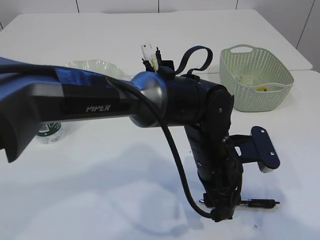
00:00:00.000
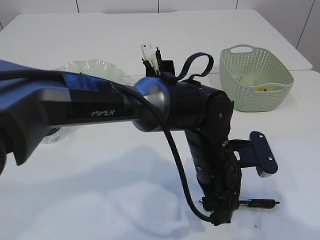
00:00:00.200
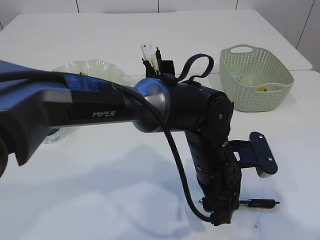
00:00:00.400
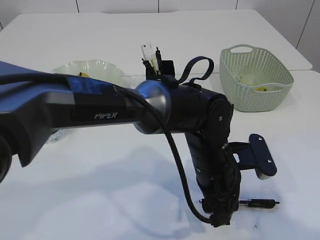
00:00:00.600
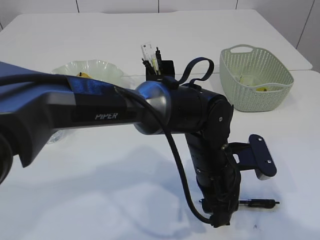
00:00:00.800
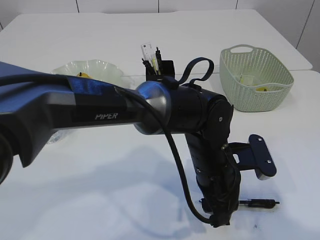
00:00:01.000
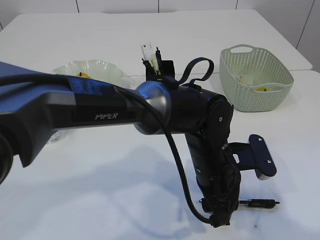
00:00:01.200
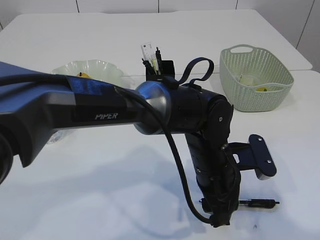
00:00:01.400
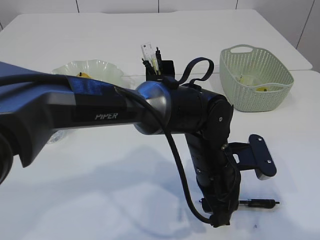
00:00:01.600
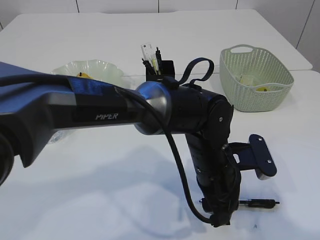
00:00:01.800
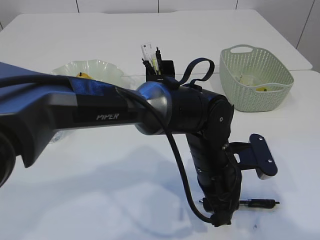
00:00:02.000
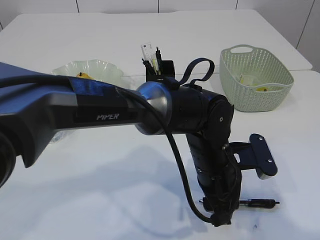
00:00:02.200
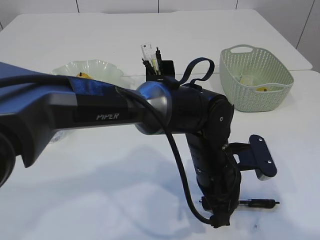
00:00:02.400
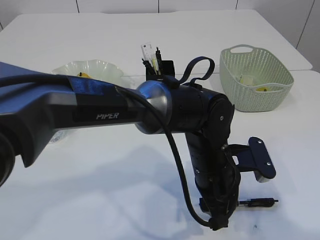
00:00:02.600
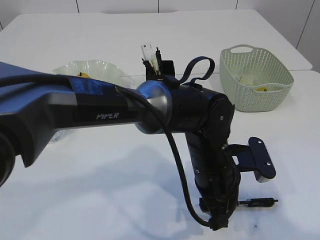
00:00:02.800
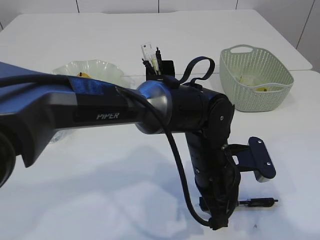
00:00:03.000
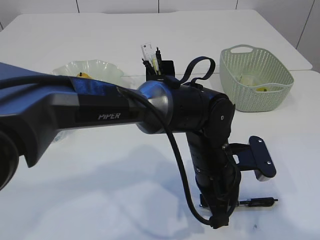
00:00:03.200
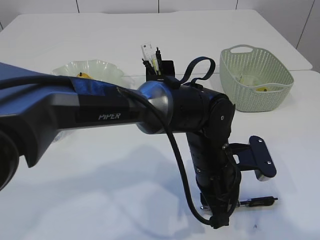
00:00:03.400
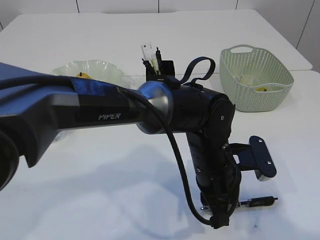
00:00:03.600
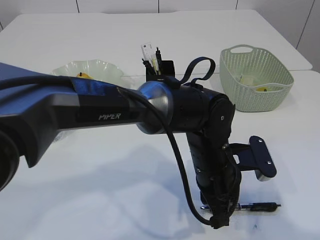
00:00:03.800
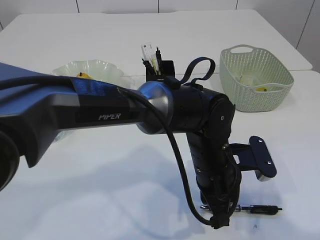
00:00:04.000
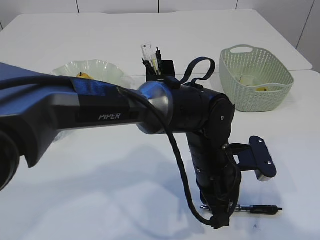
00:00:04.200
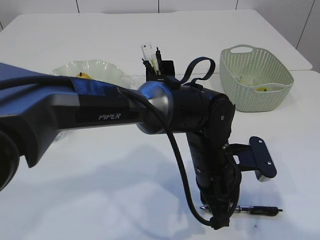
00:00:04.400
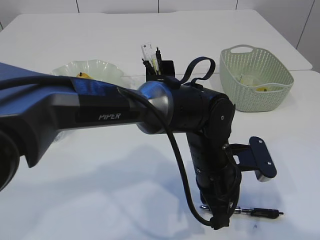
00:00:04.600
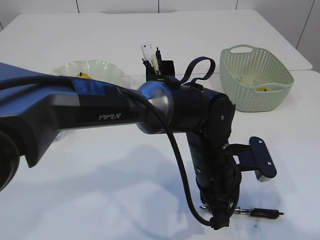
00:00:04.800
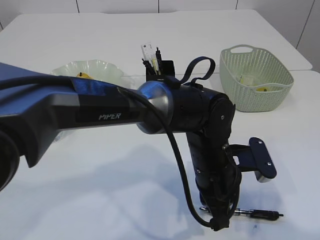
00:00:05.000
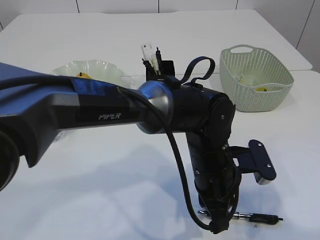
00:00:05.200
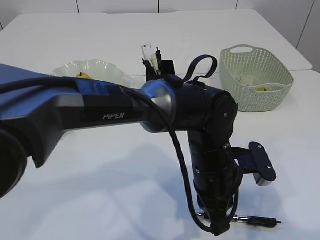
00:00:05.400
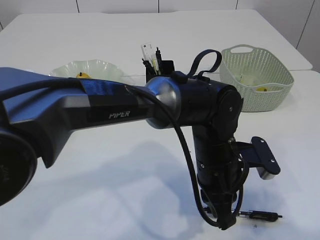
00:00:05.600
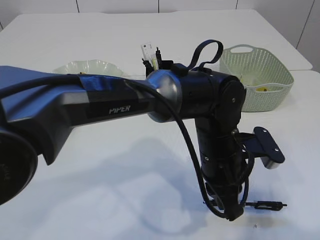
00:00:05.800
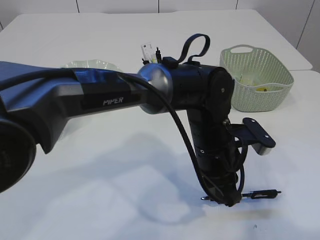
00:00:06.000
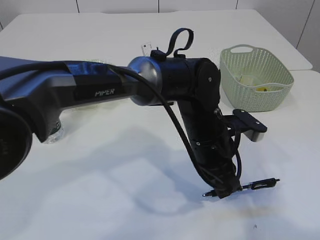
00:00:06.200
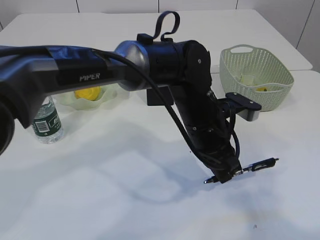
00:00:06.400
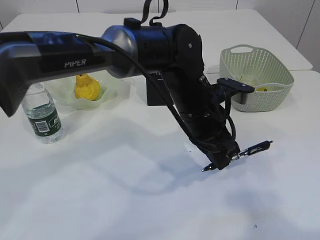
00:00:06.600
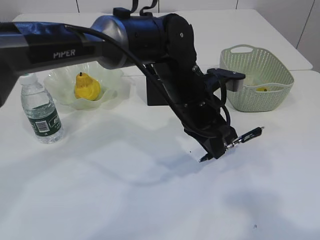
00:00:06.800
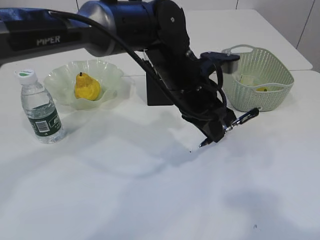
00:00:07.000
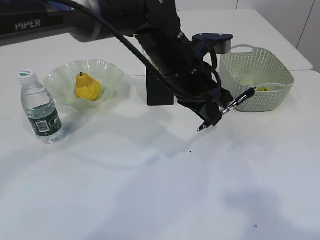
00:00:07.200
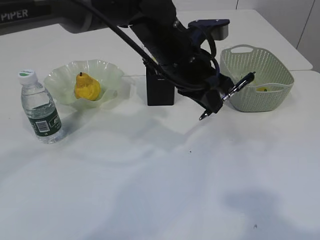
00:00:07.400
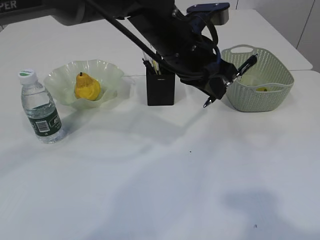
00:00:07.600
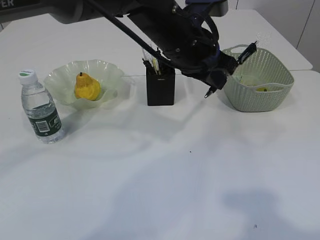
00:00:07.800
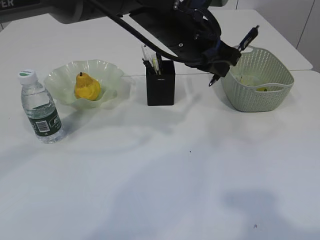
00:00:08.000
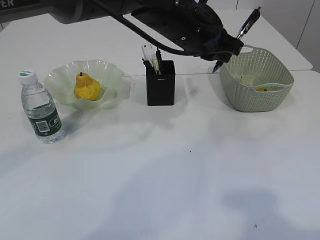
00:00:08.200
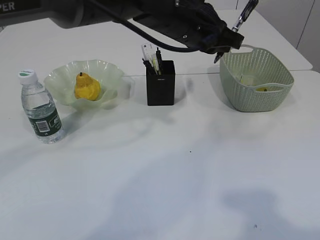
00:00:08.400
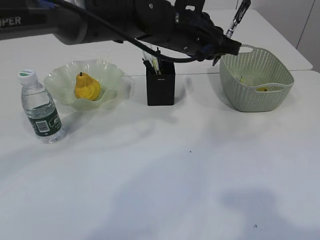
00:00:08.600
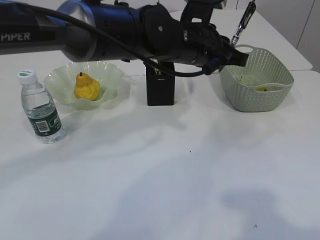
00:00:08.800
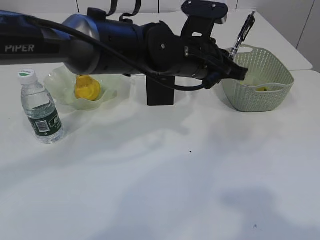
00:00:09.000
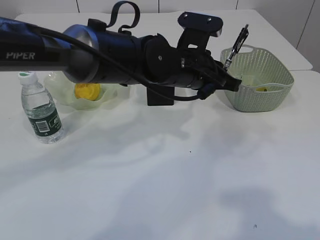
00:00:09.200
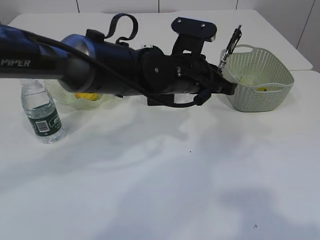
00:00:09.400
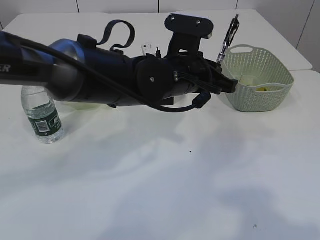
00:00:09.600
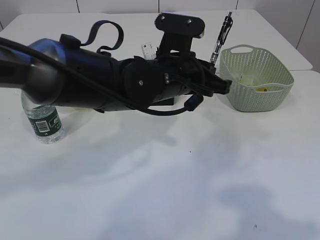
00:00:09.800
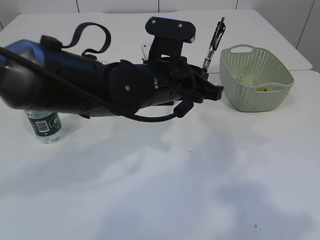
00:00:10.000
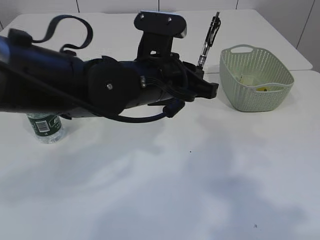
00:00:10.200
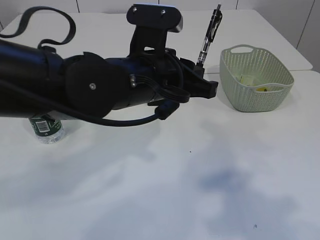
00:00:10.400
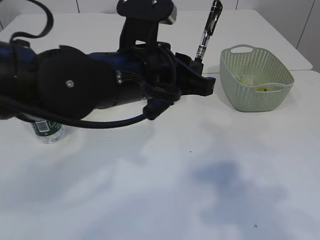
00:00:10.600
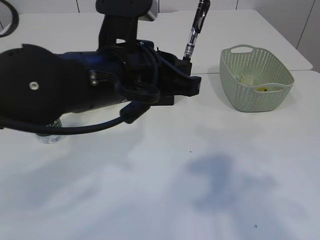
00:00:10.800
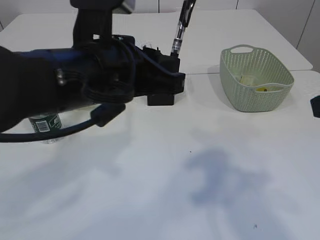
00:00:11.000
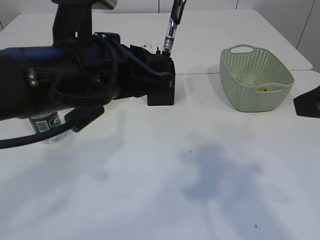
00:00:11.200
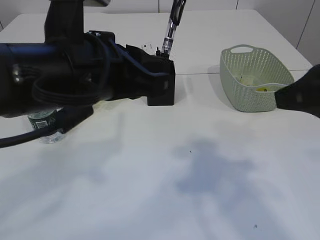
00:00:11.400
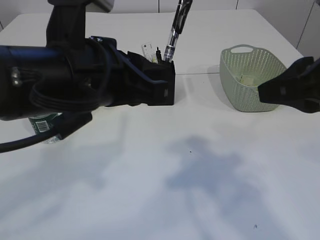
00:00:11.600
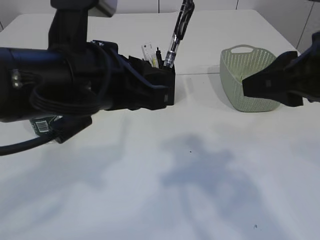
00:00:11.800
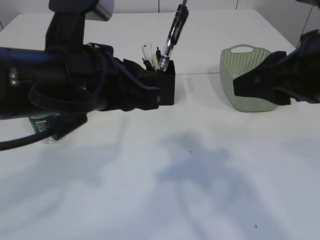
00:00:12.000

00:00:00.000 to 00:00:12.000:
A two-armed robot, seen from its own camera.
Step, 00:00:00.000 to 00:00:06.400: Pick up the pen with left arm.
00:00:00.000 to 00:00:01.600: The grippers move only a little.
00:00:01.600 to 00:00:03.000: Both grippers stay put.
00:00:03.000 to 00:00:04.400: The left gripper closes.
00:00:06.000 to 00:00:07.600: The left gripper is displaced upward, forward and to the left by some 15 cm.
00:00:09.000 to 00:00:10.400: The left gripper shifts approximately 10 cm backward and to the left.
00:00:10.400 to 00:00:12.000: The left gripper moves to the left and backward, approximately 10 cm. The right gripper moves forward and to the left, roughly 15 cm.

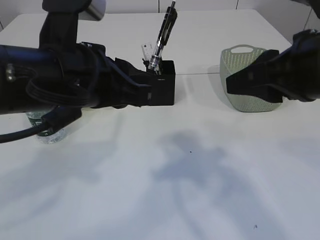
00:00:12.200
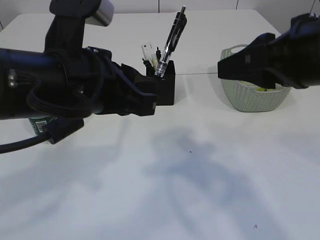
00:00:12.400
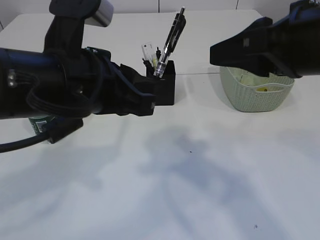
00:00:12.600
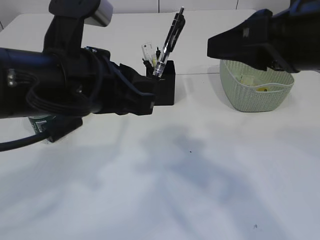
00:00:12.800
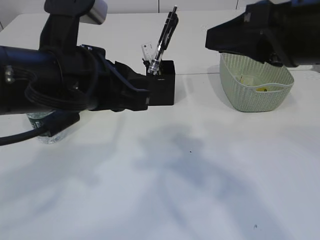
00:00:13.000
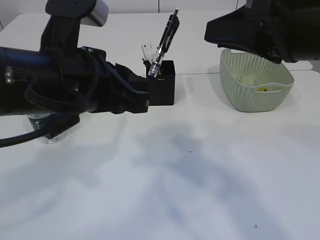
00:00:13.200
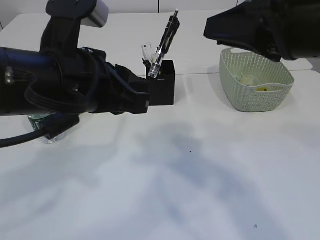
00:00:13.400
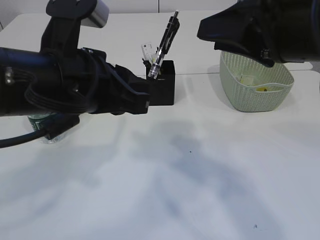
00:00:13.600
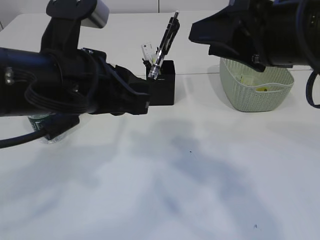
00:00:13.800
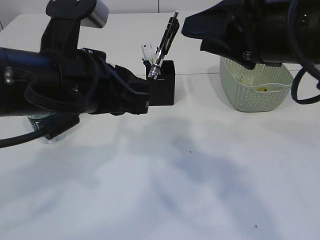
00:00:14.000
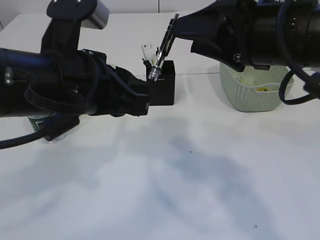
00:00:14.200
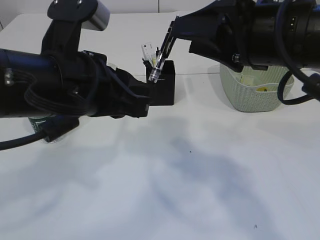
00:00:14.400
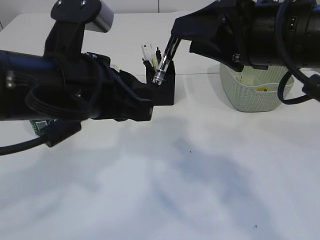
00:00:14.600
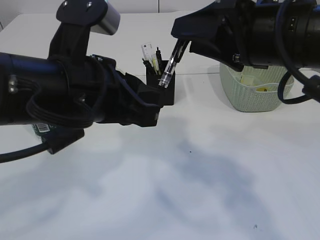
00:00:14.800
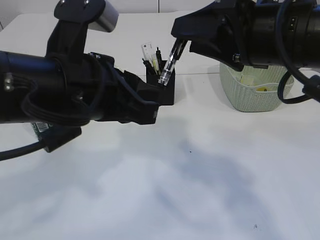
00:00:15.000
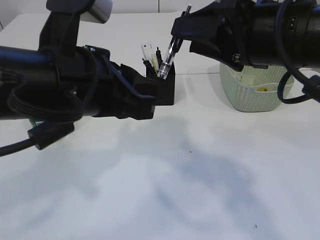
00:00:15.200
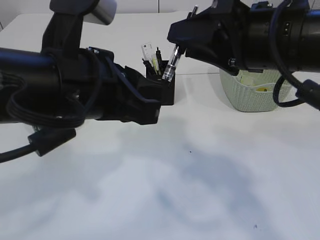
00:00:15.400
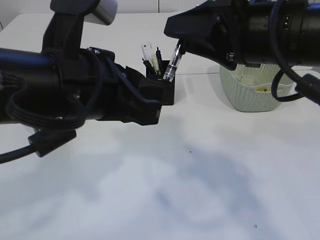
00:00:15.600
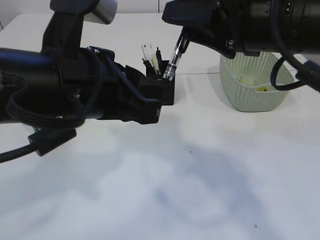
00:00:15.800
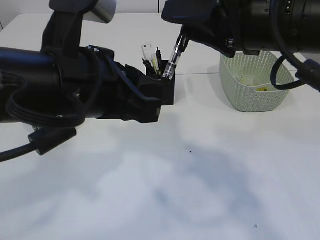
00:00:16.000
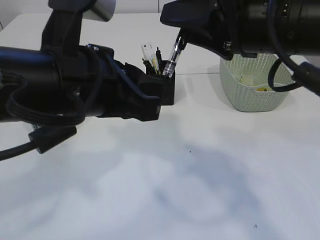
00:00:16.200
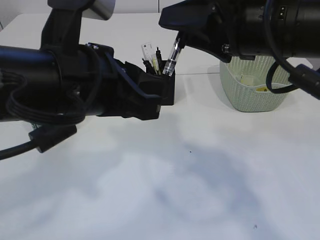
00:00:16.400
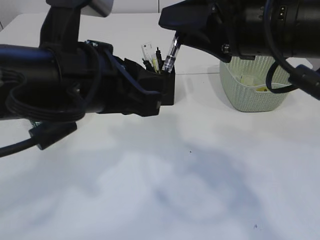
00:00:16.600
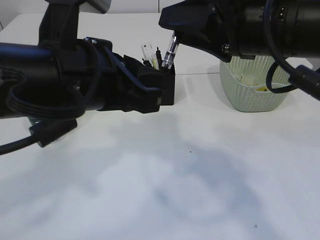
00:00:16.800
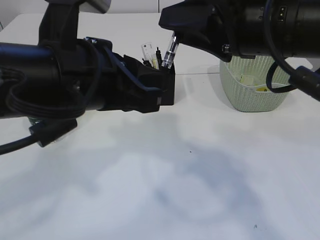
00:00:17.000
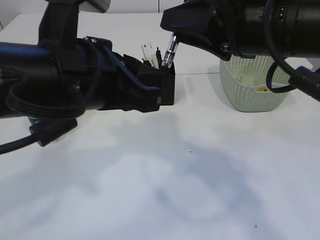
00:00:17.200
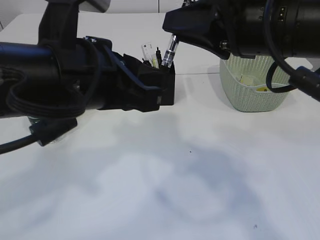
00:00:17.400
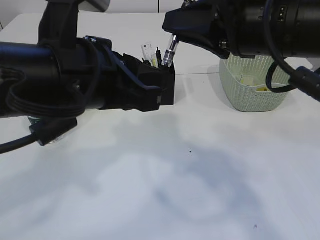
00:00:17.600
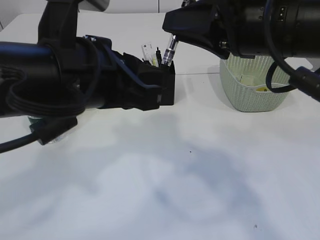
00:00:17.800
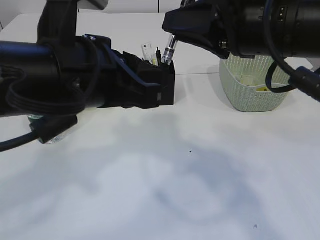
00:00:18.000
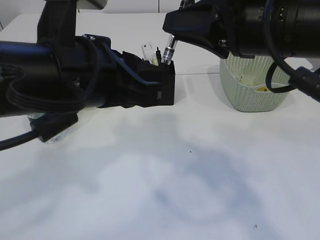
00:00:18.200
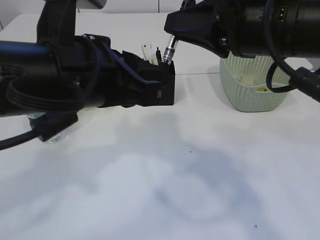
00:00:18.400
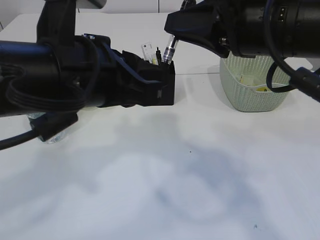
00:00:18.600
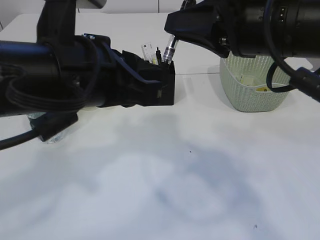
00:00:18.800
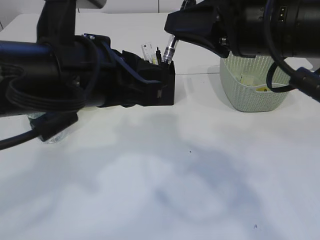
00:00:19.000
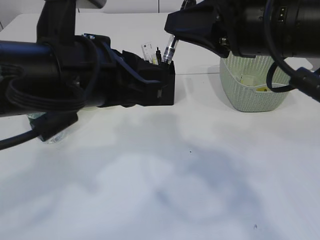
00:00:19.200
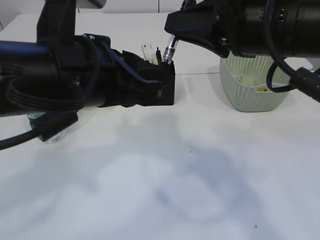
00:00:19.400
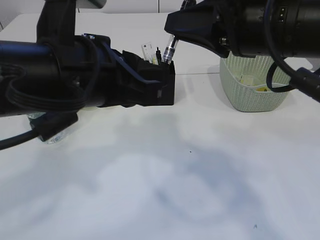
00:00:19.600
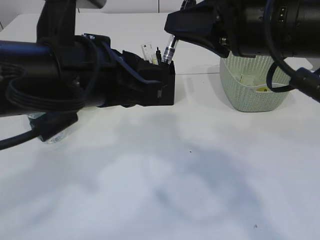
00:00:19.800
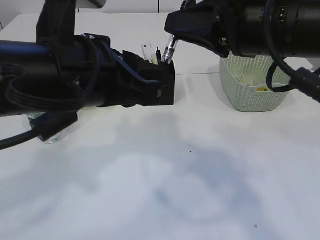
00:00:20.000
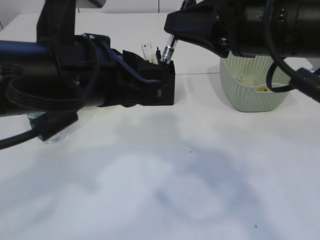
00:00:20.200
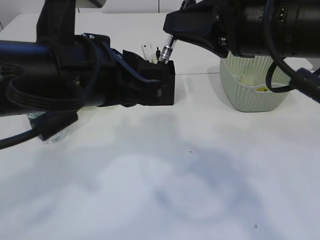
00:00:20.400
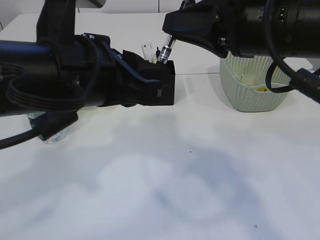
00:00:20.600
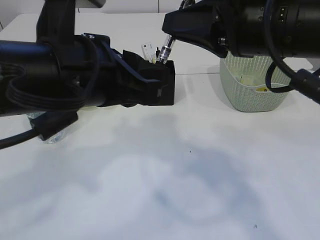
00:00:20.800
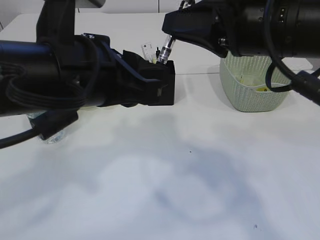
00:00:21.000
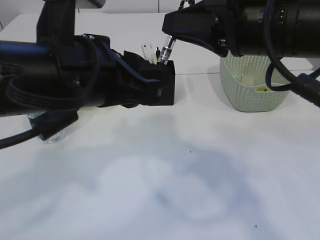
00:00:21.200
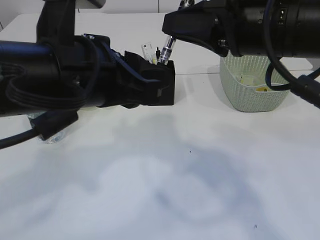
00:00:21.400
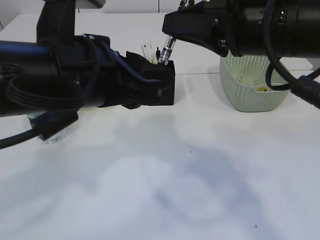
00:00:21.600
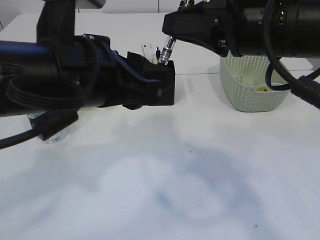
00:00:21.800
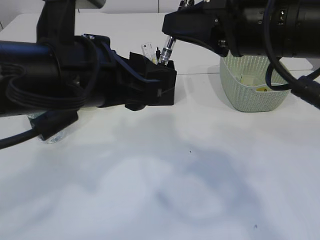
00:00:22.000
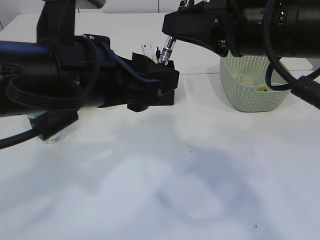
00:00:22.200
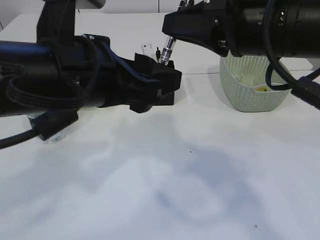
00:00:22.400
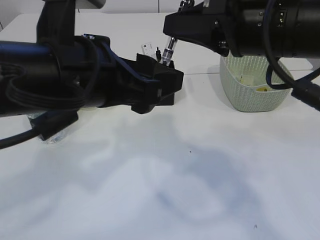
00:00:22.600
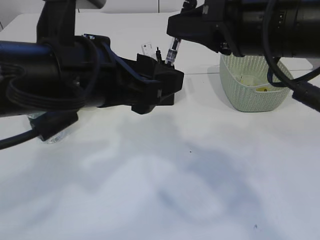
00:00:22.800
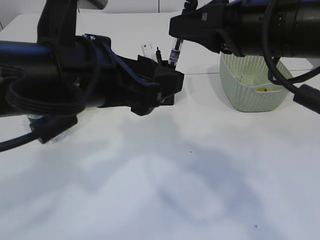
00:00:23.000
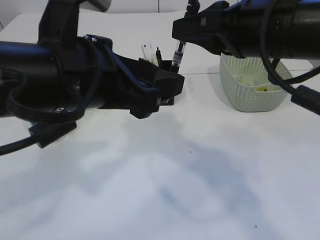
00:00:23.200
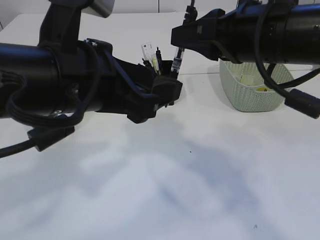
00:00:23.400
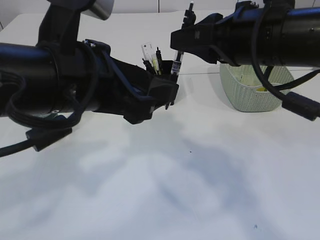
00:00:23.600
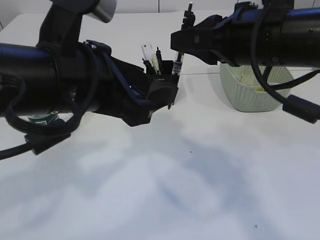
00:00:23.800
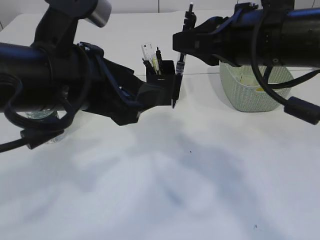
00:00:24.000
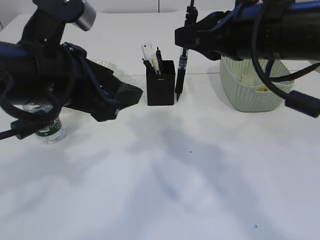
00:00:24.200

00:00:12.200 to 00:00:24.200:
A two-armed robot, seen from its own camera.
Step, 00:00:12.200 to 00:00:20.600: transfer the pen to the right arm.
00:00:13.800 to 00:00:16.600: The grippers stay close to where they were, moving slightly.
00:00:16.600 to 00:00:18.200: The right gripper closes up.
00:00:18.200 to 00:00:21.200: The two grippers keep their place.
00:00:21.200 to 00:00:22.600: The left gripper opens its fingers.
